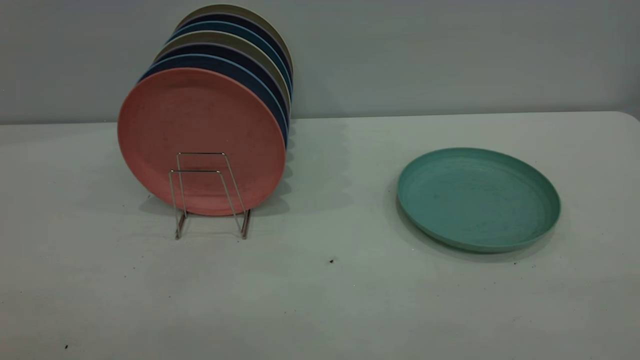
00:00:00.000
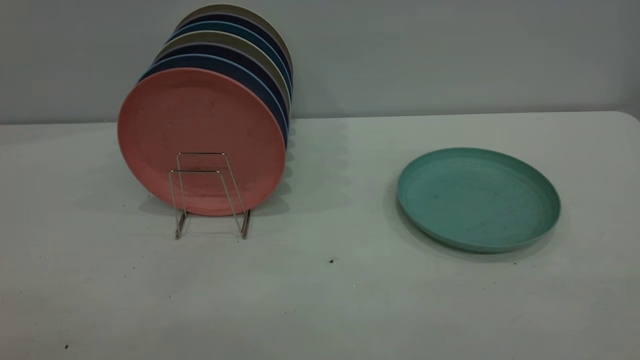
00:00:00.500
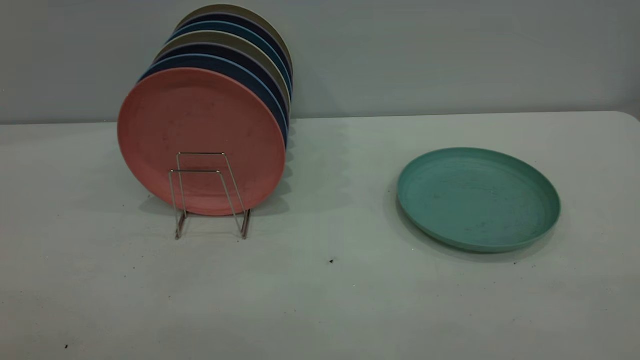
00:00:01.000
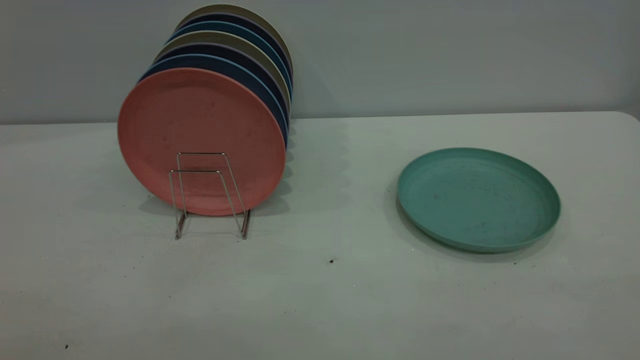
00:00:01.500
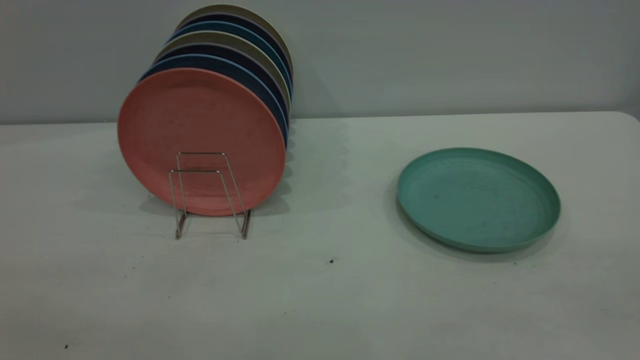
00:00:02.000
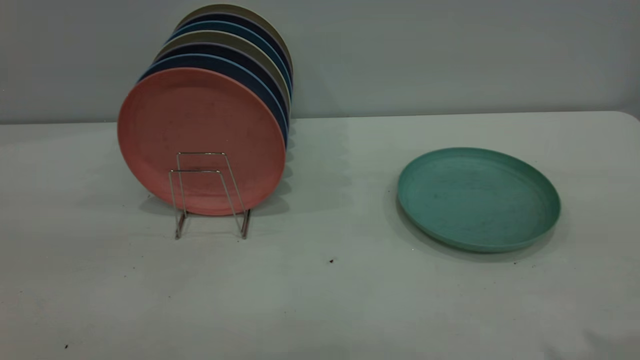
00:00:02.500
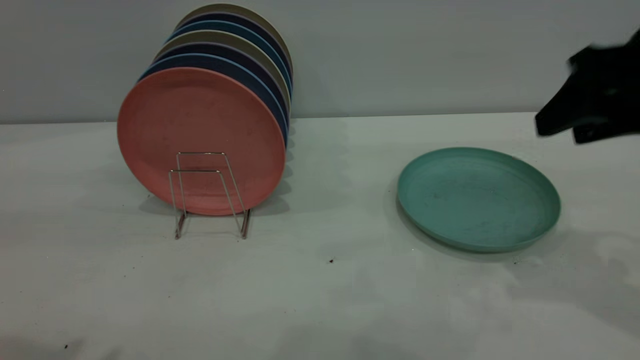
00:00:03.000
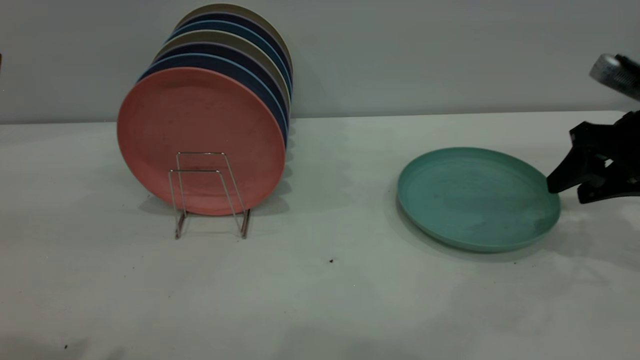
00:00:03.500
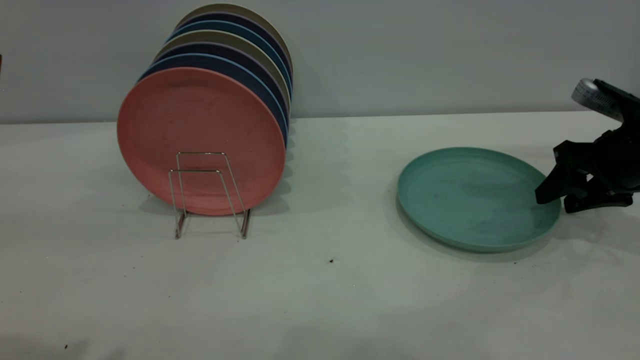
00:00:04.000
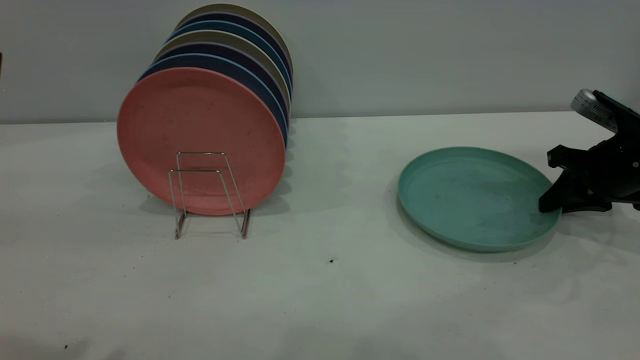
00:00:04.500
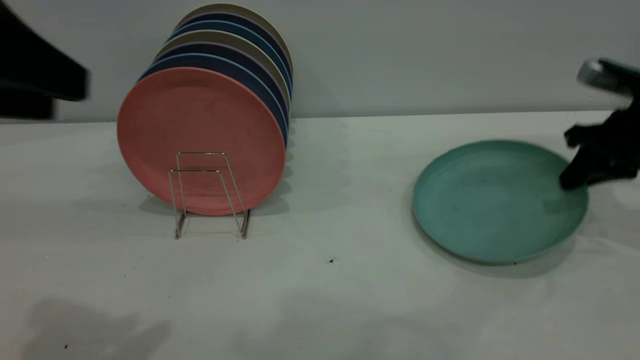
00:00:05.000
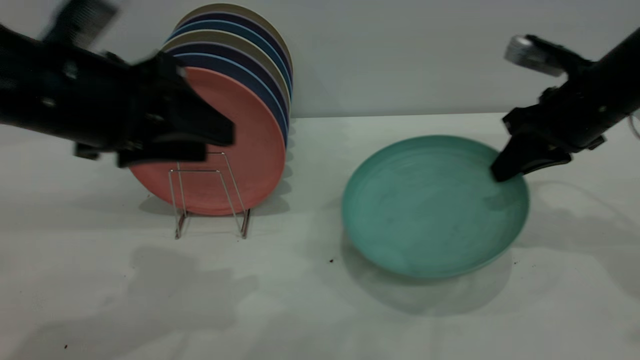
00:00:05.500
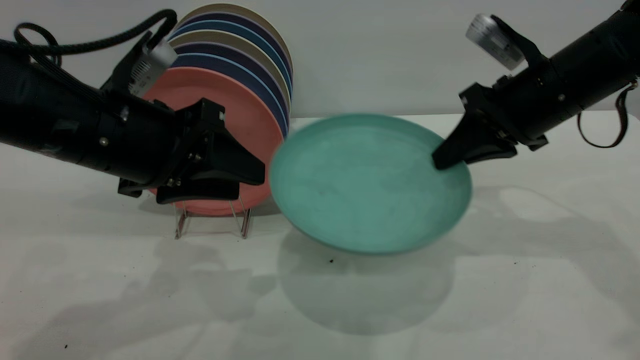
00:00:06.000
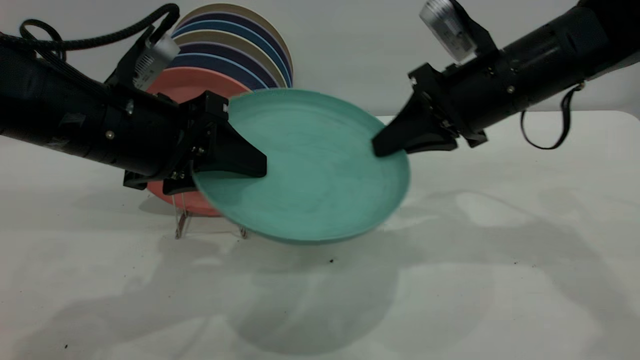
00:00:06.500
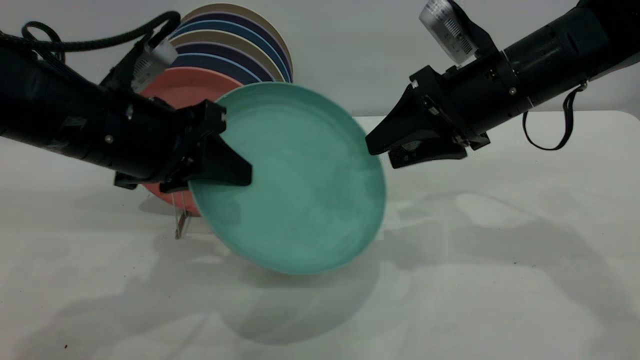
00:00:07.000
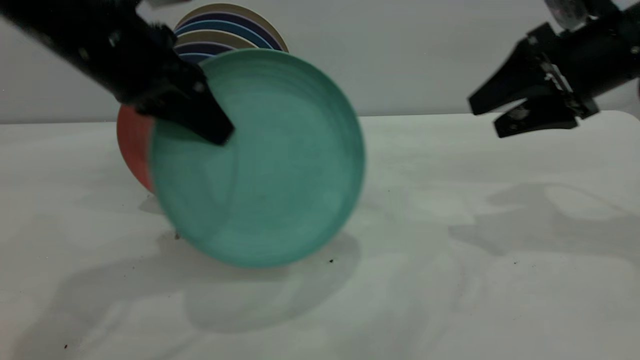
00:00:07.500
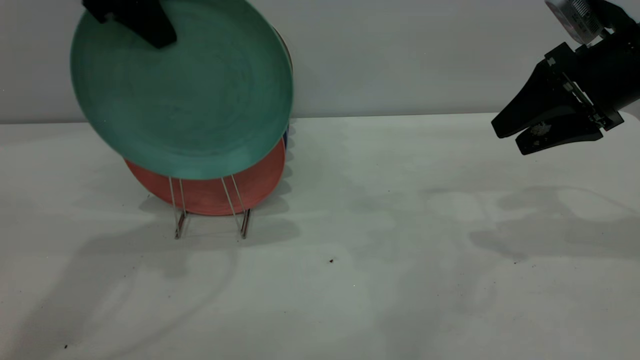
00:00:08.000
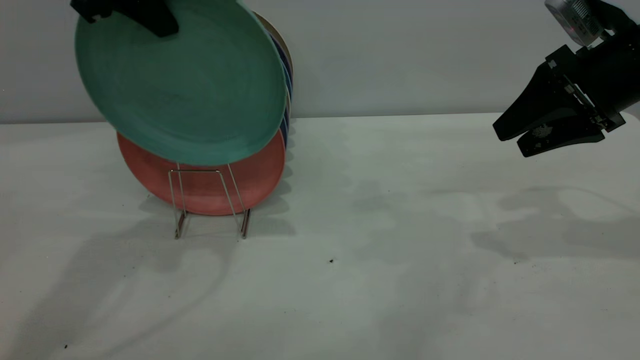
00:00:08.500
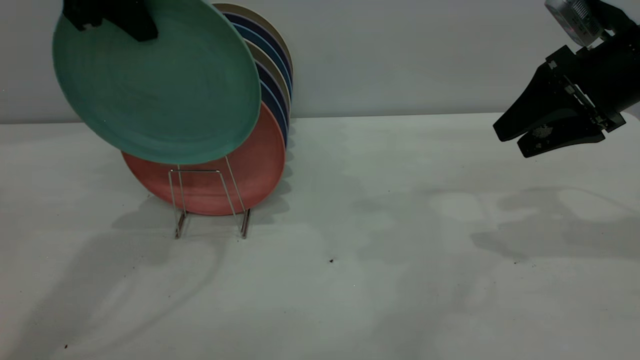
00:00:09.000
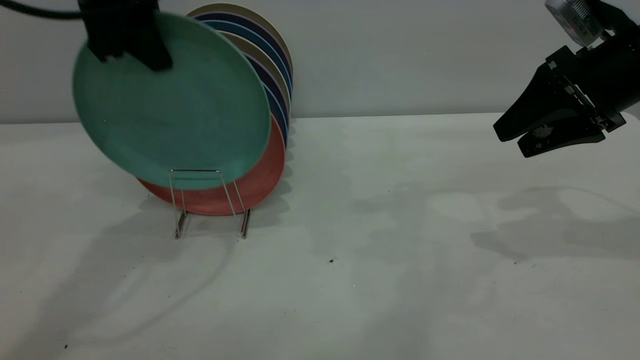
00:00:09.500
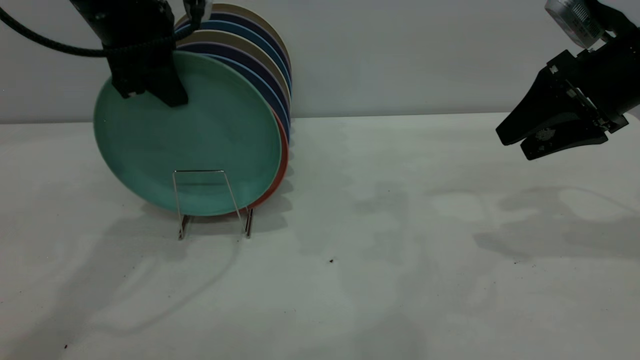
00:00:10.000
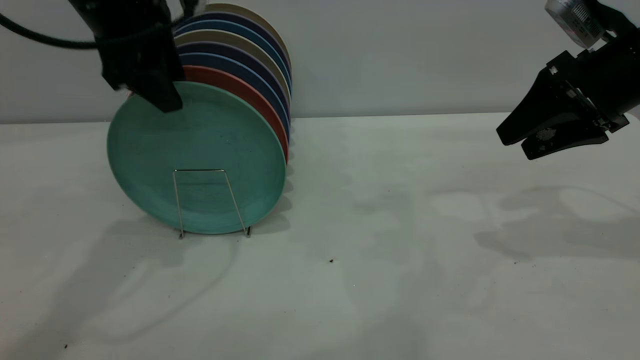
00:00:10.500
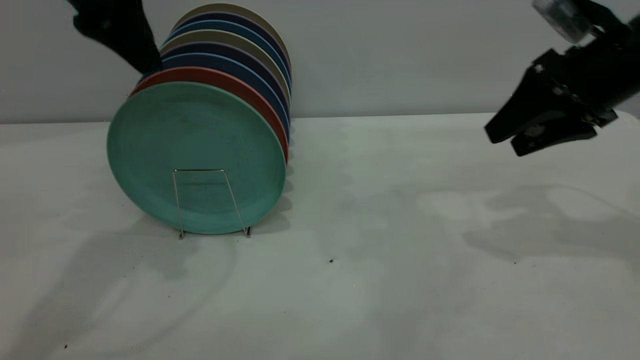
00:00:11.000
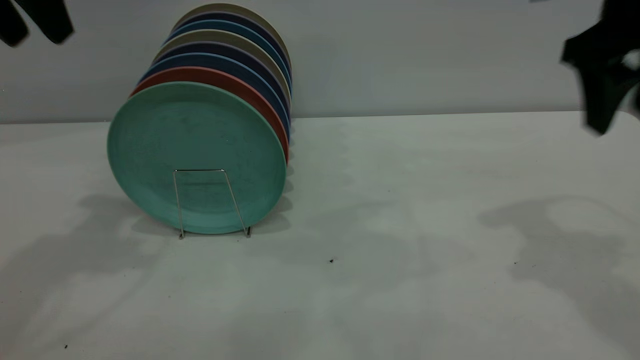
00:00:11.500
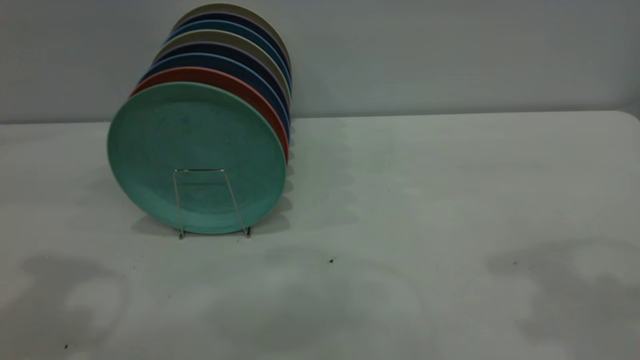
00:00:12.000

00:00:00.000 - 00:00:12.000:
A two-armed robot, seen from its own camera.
Task of the whole recording: the right gripper grasp the green plate, the right gripper pass the green plate to the left gripper, and the left gripper place the green plate on the plate rack.
Step, 00:00:00.000 - 00:00:05.000: Pick up the plate with the right gripper.
Step, 00:00:05.500 - 00:00:07.000: Pass the plate from the right gripper to the left gripper.
Step, 00:00:07.500 - 00:00:11.000: Place the plate on the shelf.
00:00:02.000 - 00:00:04.000: The right gripper moves forward and downward, approximately 50 cm.
00:00:04.000 - 00:00:06.000: The left gripper travels downward, forward and to the right by about 20 cm, while the right gripper shifts approximately 15 cm to the left and upward, and closes up.
00:00:06.000 - 00:00:08.000: The right gripper travels to the right by approximately 5 cm, and opens up. Meanwhile the left gripper goes roughly 20 cm upward and forward, and closes.
00:00:08.000 - 00:00:10.000: The left gripper shifts roughly 5 cm downward.
00:00:10.000 - 00:00:12.000: The left gripper is displaced backward, upward and to the left by about 20 cm, and opens its fingers. Meanwhile the right gripper travels upward and backward by about 25 cm.

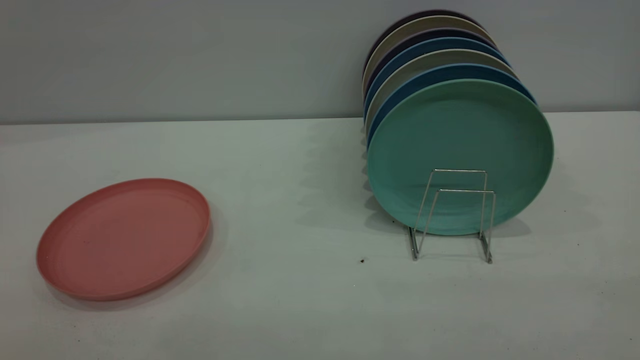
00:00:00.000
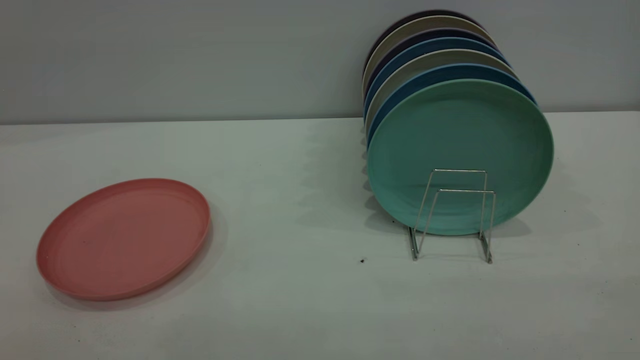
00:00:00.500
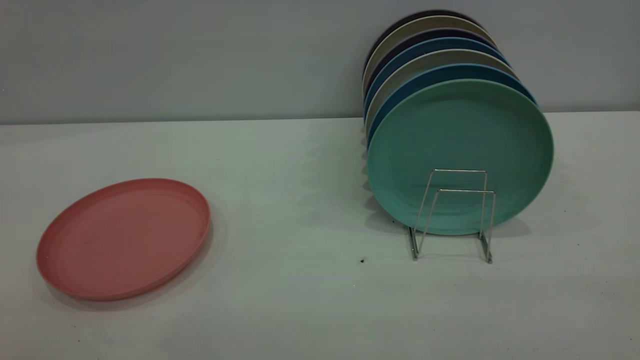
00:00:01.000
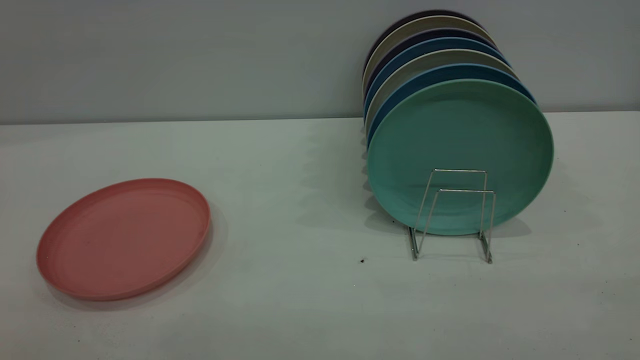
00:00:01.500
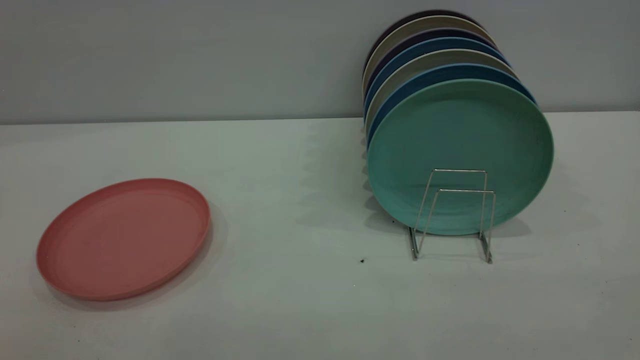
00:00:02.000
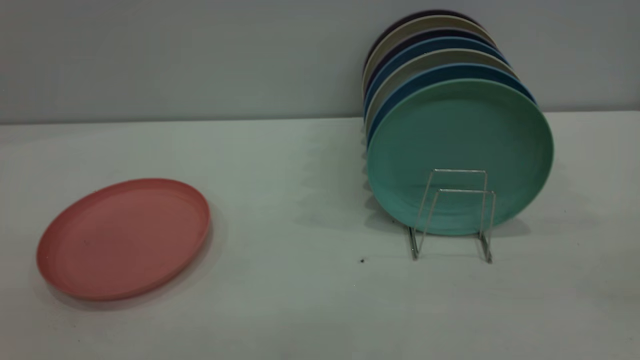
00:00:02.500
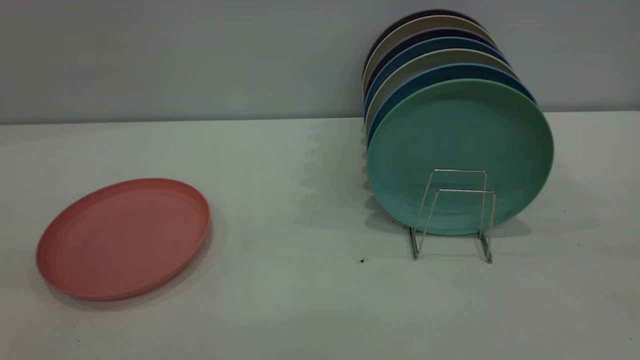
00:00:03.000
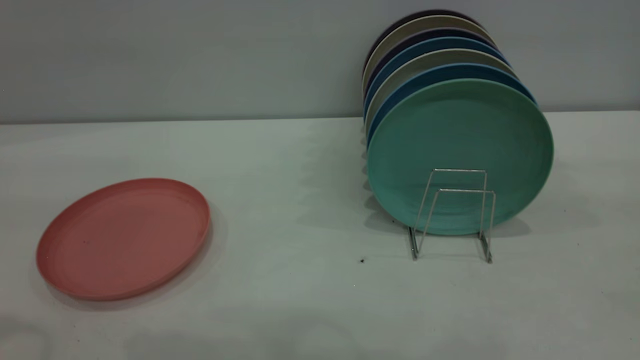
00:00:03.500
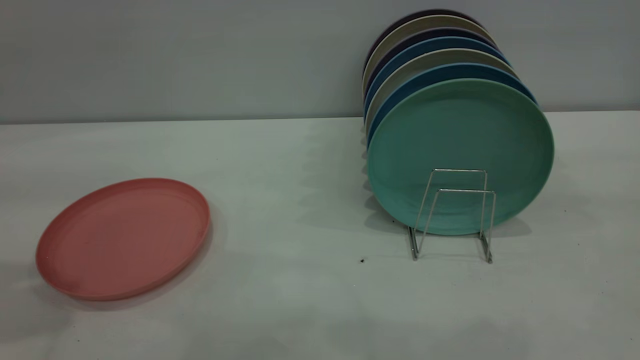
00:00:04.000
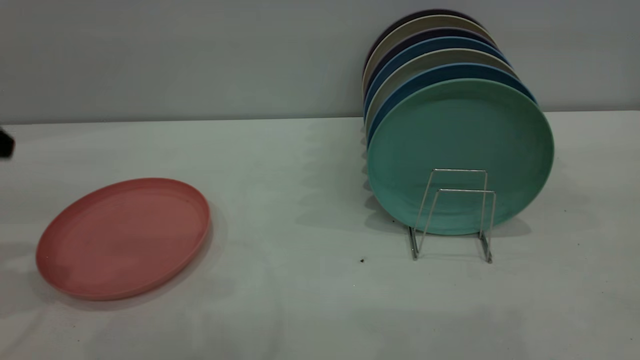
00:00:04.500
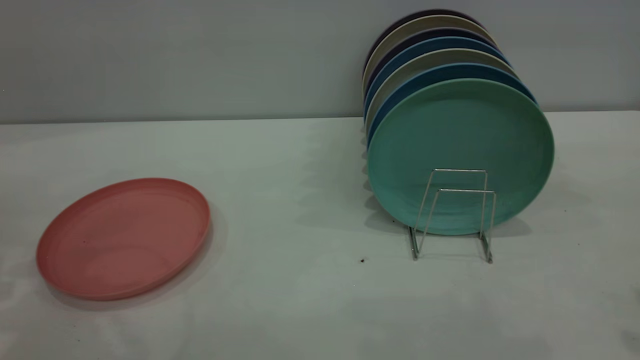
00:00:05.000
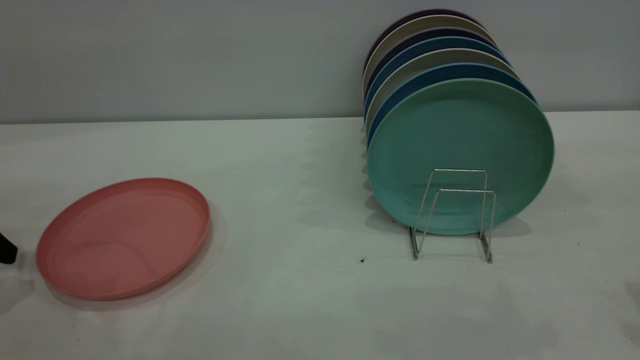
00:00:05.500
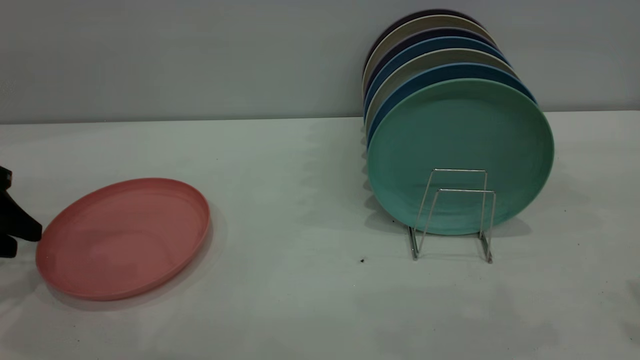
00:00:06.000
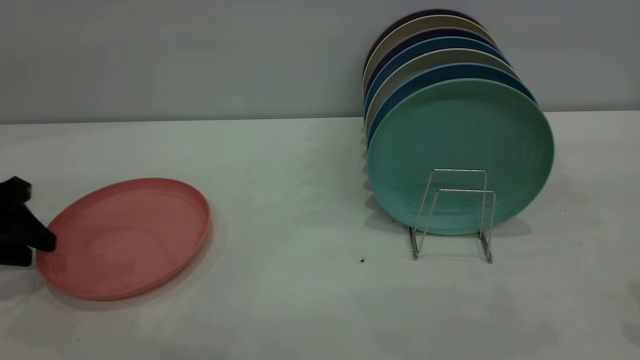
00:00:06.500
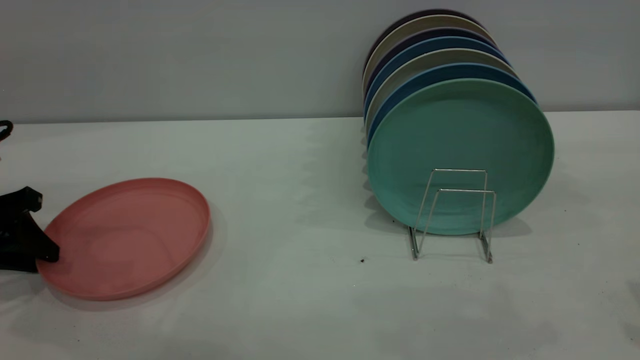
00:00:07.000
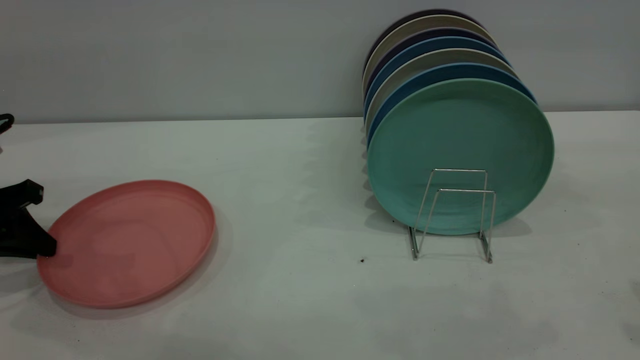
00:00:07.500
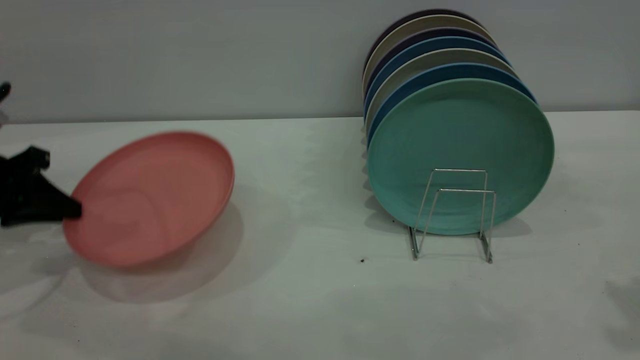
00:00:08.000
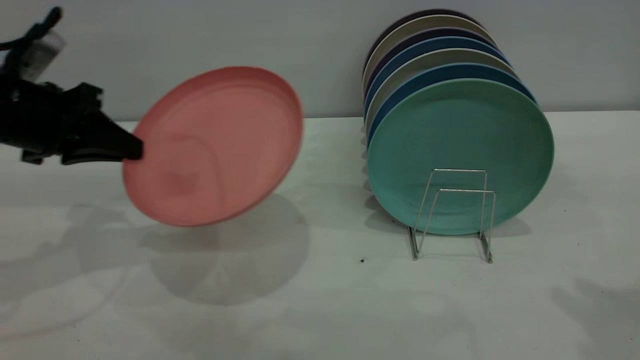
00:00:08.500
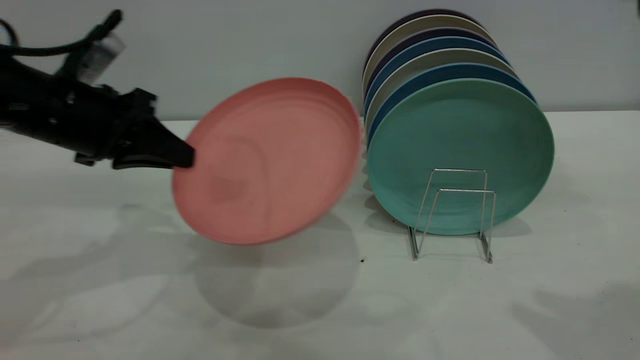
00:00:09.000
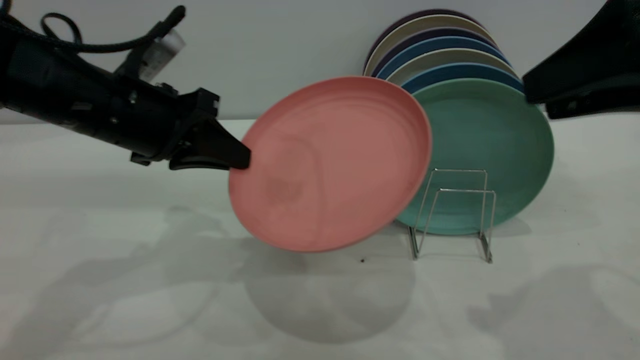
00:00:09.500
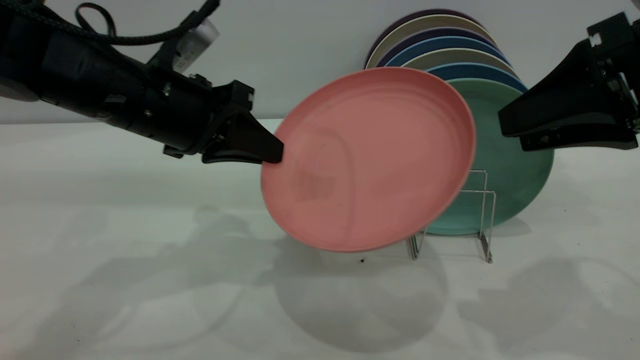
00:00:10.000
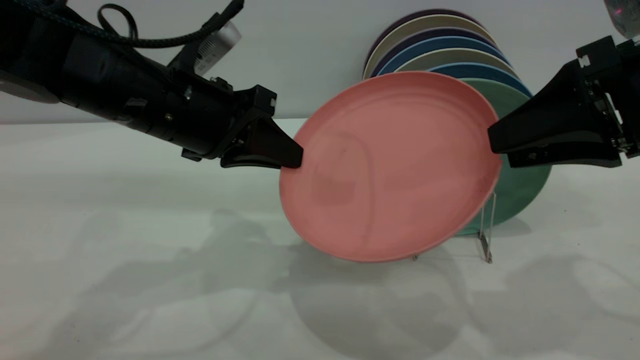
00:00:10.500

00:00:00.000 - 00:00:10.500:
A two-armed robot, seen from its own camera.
Task of the whole recording: put the plate on the plate rack.
Step, 00:00:00.000 - 00:00:08.000: Pick up the plate with the left gripper.
00:00:00.000 - 00:00:02.000: Neither gripper changes place.
00:00:04.000 - 00:00:06.500: The left gripper shifts roughly 20 cm downward.
00:00:06.500 - 00:00:08.500: The left gripper moves to the right and upward, approximately 10 cm, and closes its fingers.
00:00:08.500 - 00:00:10.500: The right gripper heads downward and to the left, covering approximately 10 cm; the left gripper goes roughly 15 cm to the right.
